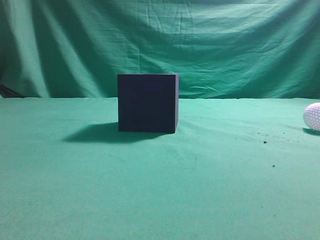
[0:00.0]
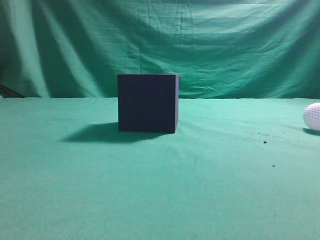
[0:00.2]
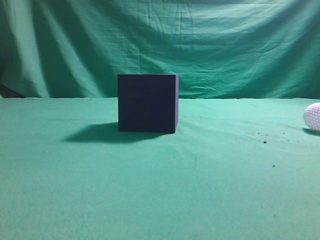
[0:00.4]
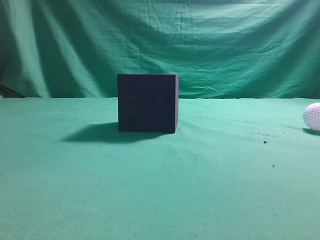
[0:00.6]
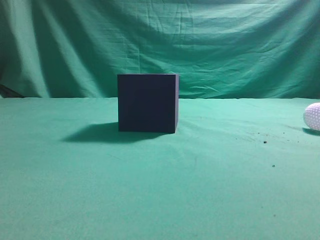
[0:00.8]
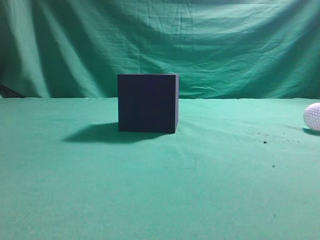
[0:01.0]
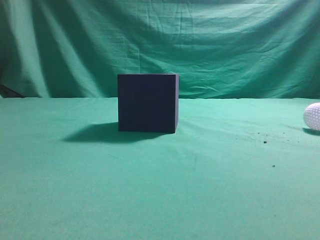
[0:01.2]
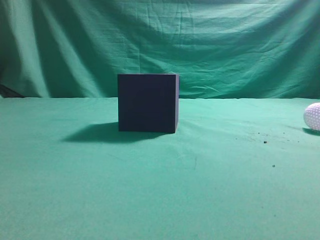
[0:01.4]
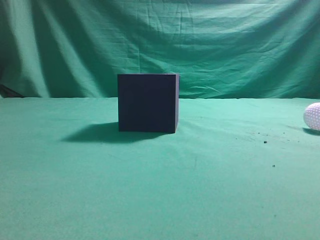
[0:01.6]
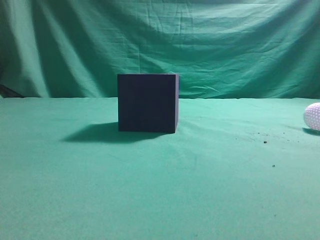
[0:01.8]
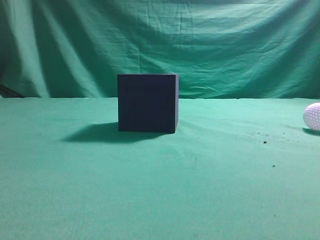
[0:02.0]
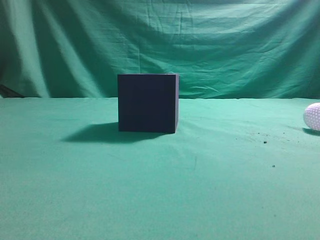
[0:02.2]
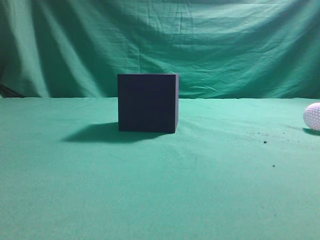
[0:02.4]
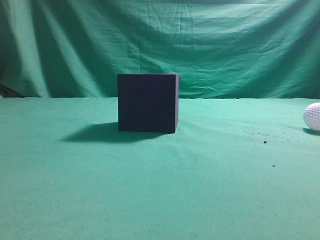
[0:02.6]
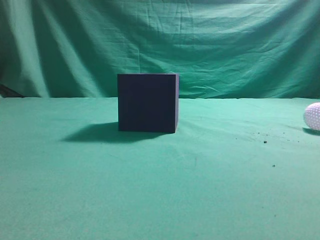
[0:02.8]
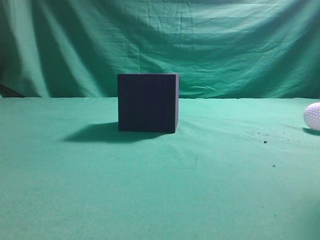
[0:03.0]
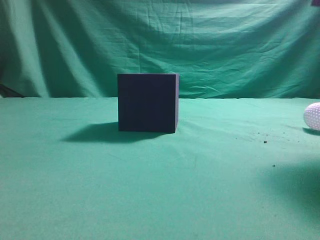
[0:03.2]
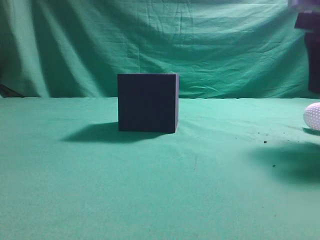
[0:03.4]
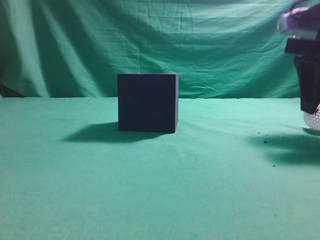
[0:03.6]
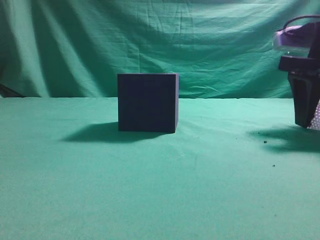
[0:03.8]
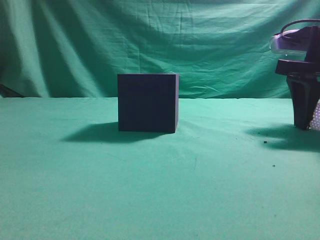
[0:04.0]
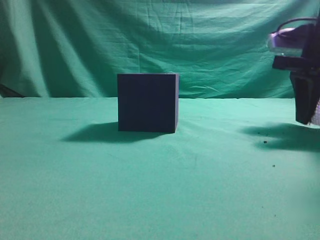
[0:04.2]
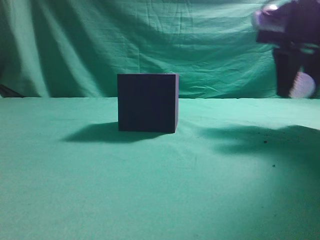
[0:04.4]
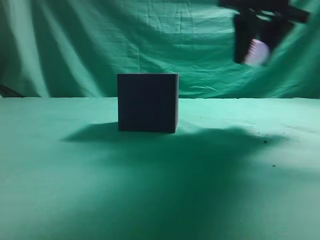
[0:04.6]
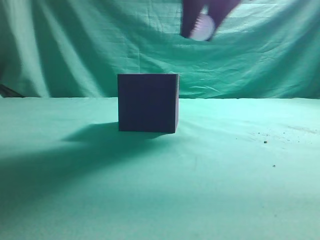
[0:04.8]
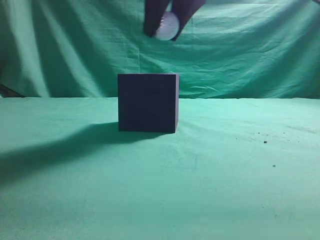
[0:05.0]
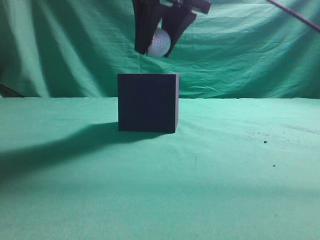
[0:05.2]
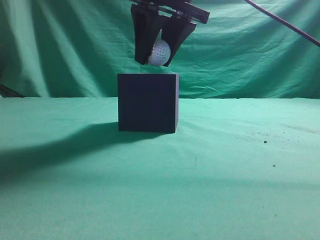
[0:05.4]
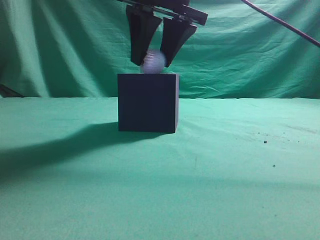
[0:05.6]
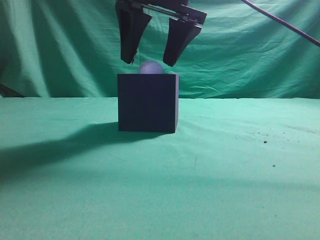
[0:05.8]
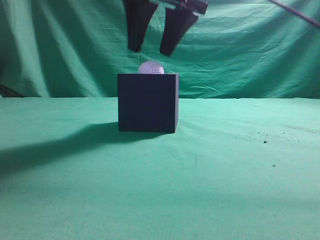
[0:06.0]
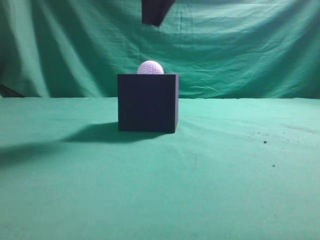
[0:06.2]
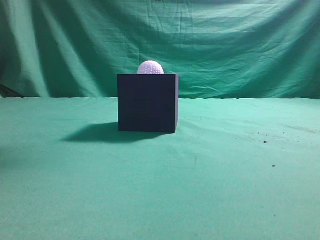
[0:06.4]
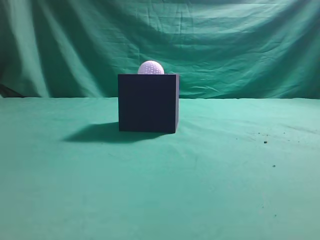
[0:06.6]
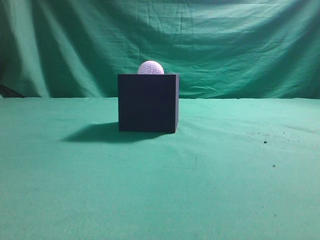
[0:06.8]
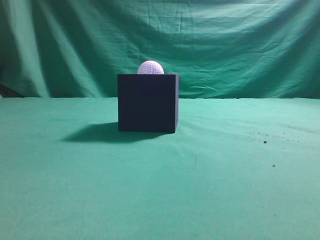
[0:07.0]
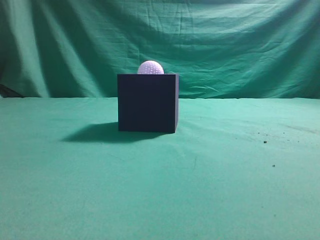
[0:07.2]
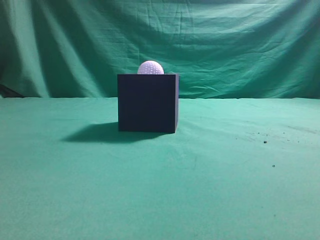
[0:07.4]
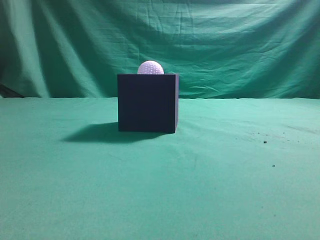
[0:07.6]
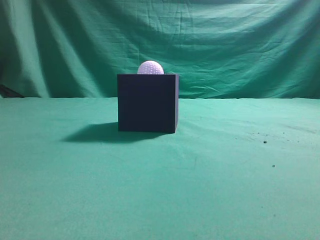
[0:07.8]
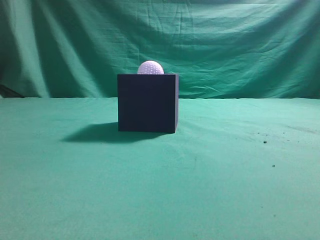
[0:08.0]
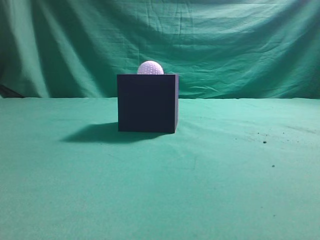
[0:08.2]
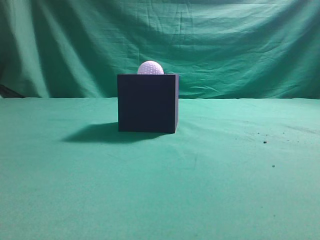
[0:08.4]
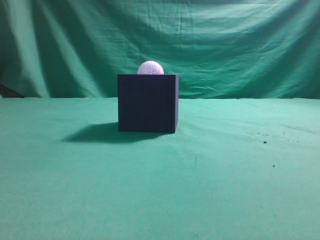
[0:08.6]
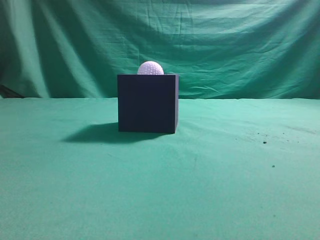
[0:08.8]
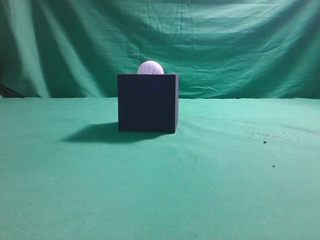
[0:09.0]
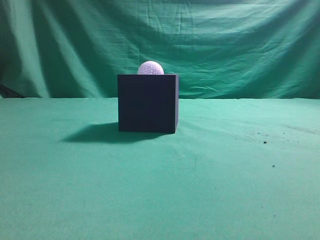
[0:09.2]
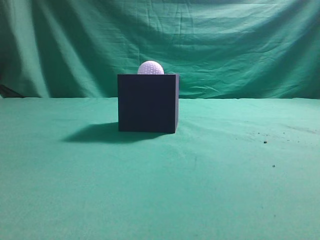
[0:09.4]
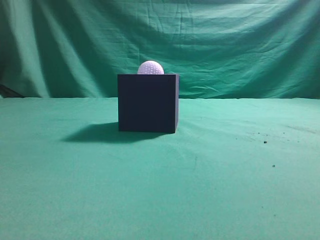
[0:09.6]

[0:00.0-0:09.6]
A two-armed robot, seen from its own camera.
Task of the whole recording: Pick up the ball and place it in the circular groove above the cube.
Step, 0:00.0 to 0:04.4: Grasp the sphere on the table.
Step, 0:04.6 to 0:05.8: Place the sphere into the sphere-shaped recess.
0:01.6 to 0:03.2: The right gripper is displaced forward by approximately 20 cm, and opens.
0:03.2 to 0:04.8: The right gripper shifts some 20 cm to the left and forward.
0:04.8 to 0:06.4: The right gripper is displaced to the left and upward by some 10 cm, and closes up.
